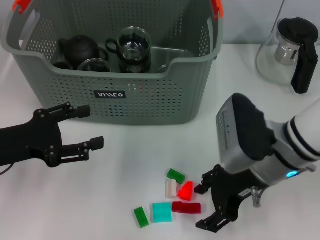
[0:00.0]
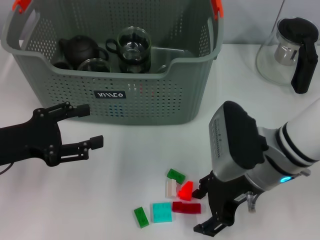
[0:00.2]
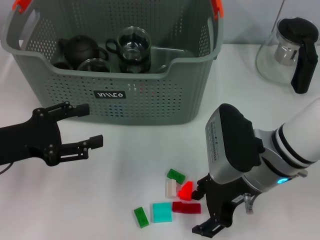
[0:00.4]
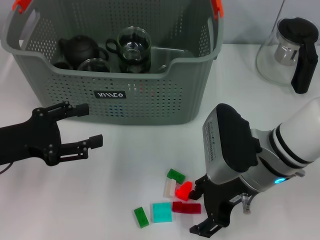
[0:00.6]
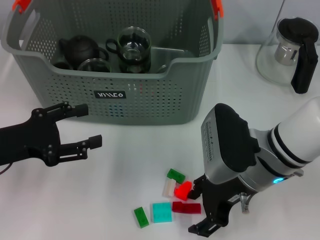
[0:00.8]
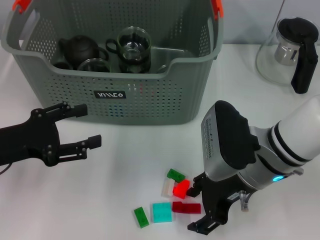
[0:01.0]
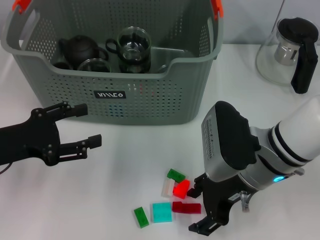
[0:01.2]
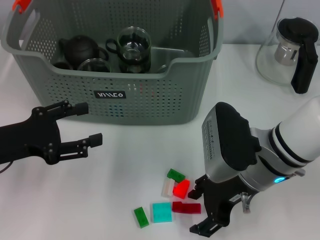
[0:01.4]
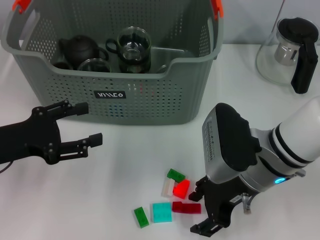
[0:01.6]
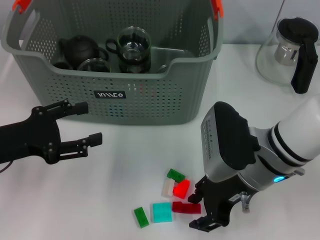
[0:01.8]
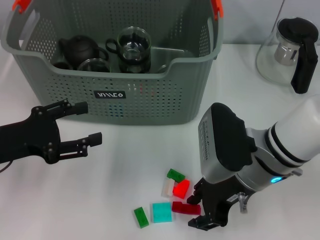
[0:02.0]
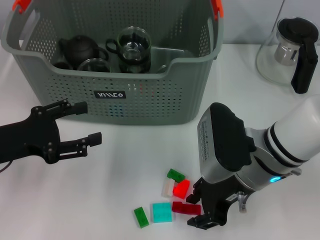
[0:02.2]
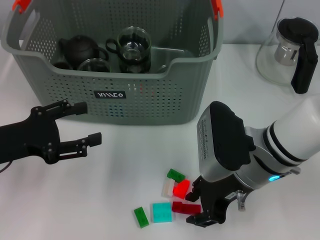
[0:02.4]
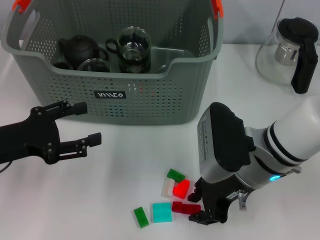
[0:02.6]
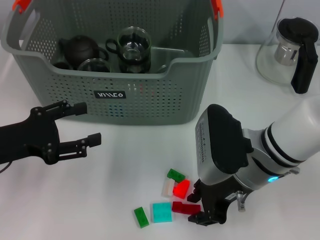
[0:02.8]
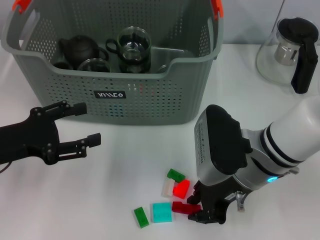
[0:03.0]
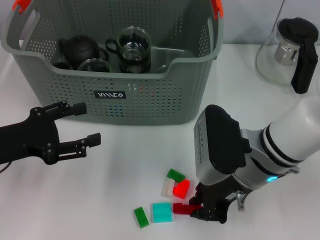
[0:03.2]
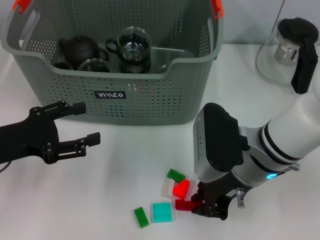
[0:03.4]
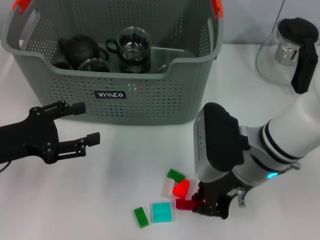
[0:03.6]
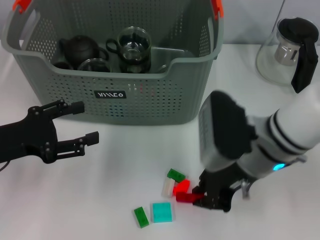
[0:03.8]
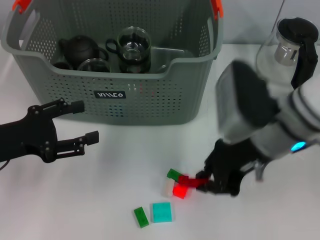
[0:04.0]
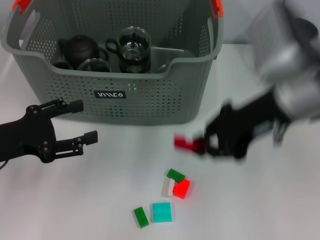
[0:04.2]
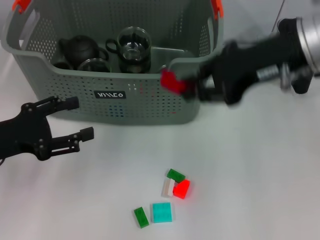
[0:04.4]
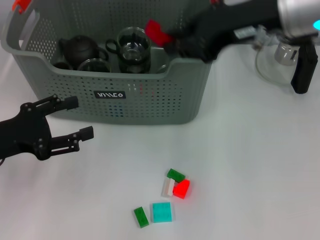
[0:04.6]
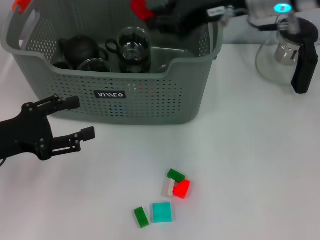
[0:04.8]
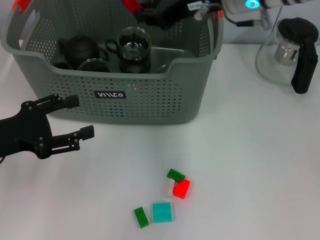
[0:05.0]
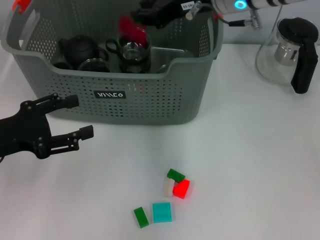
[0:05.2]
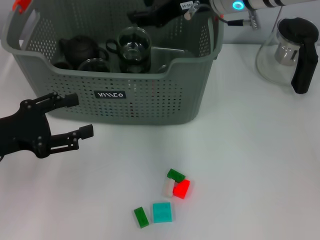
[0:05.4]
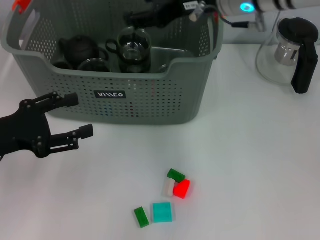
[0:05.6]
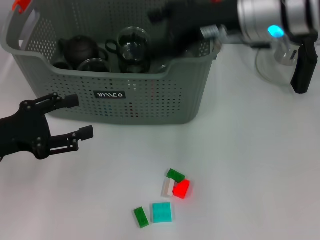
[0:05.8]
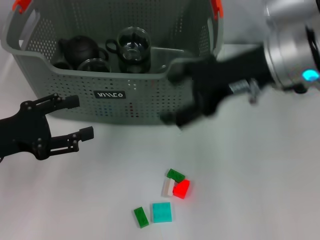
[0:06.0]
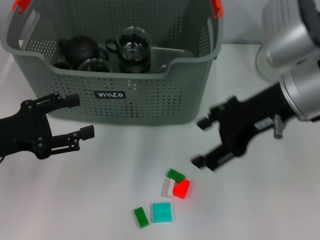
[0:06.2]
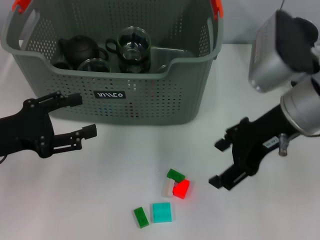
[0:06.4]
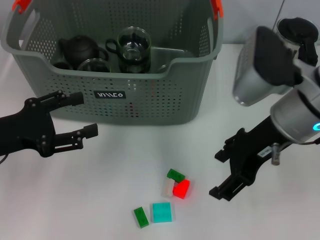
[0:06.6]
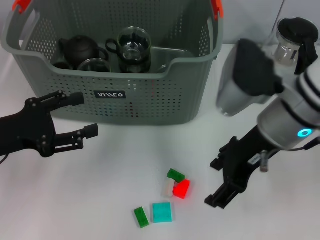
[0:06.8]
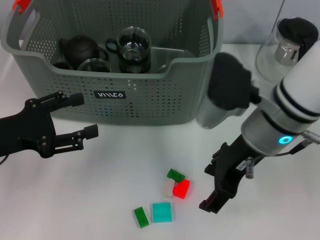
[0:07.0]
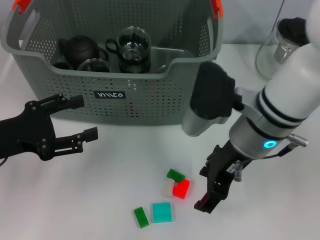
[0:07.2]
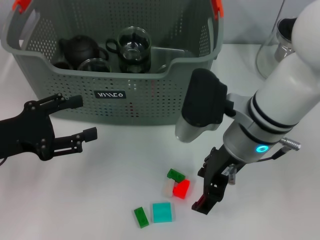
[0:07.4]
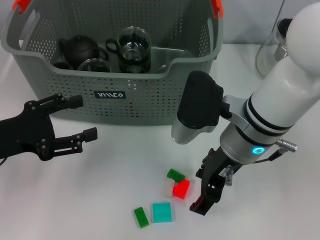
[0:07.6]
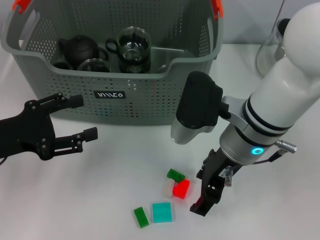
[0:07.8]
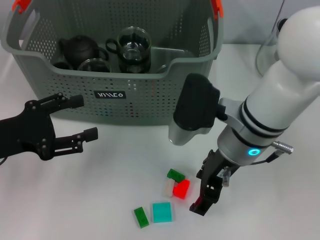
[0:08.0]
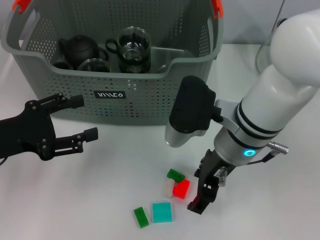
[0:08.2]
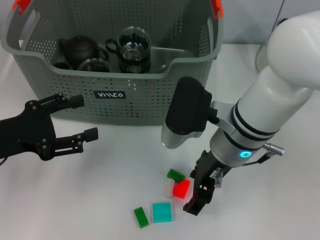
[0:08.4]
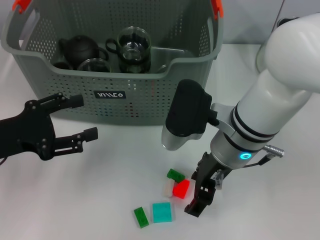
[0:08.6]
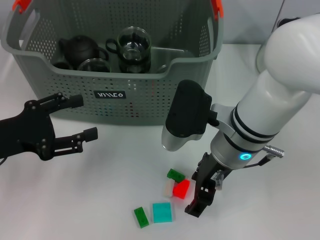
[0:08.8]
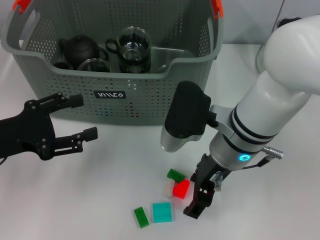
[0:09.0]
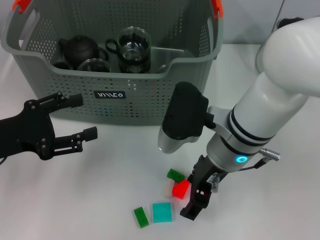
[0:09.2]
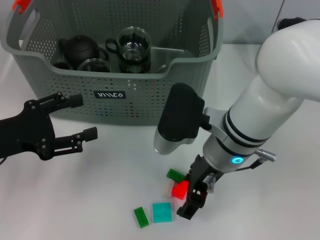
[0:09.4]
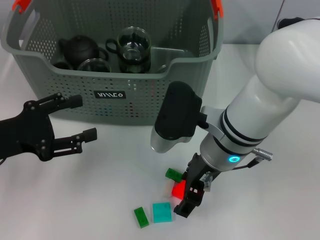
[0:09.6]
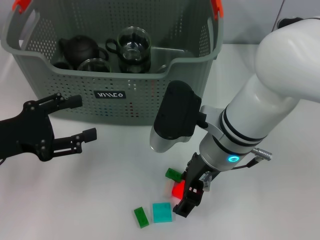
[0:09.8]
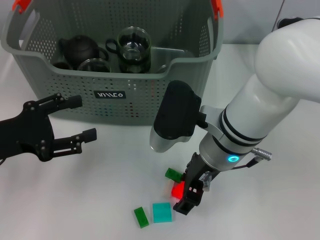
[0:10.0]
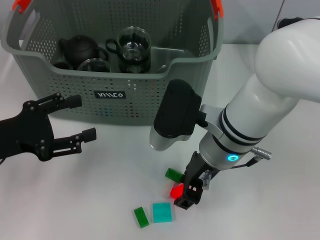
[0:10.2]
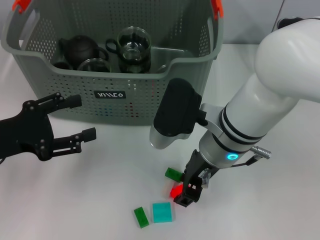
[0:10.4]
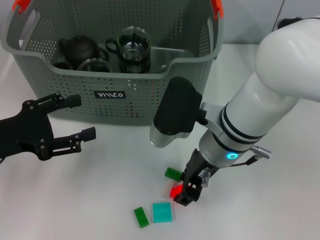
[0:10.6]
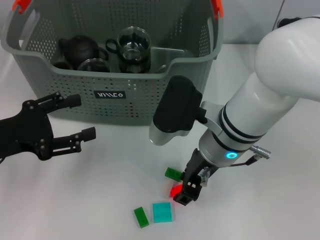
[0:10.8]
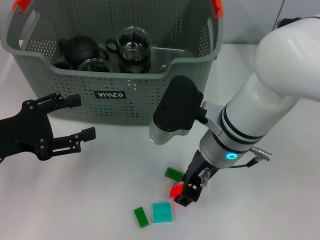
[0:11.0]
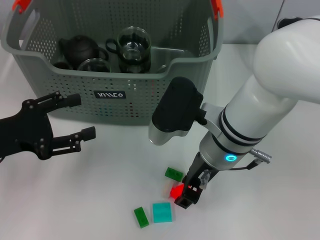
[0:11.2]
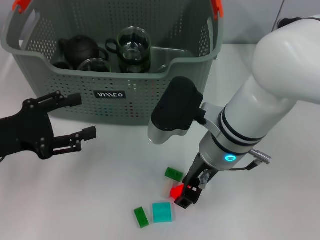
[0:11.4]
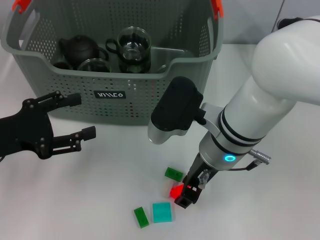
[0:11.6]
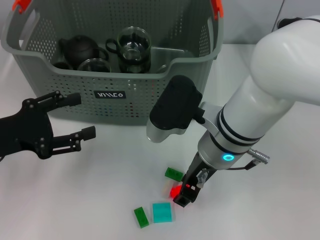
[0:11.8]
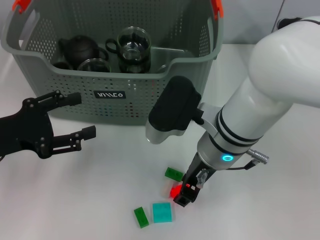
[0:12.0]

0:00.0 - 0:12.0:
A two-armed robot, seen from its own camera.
Task of the whole recording: pick up the teacup on the table and place it into the storage bin, pick up the block on the table and place it into the storage bin.
Step, 0:00.0 - 0:03.4: Grasp the red block with right gripper.
Step, 0:03.8 - 0:05.2: Place the red block in the storage box with right gripper.
Step, 0:05.4 - 0:11.8: Grasp the orange block with right gripper.
0:00.0 - 0:01.6: The grippers make only small movements.
0:01.6 - 0:03.0: The right gripper closes its fingers.
0:03.0 - 0:04.4: The right gripper travels upward by about 15 cm.
0:04.4 - 0:06.0: The right gripper goes forward and returns, some 10 cm each way, and opens.
0:06.0 - 0:07.6: The right gripper shifts approximately 10 cm downward and to the left.
0:07.6 - 0:09.0: There are only small adjustments of the grippers.
0:09.0 - 0:10.4: The right gripper closes up.
0:10.4 - 0:12.0: The grippers move only a little.

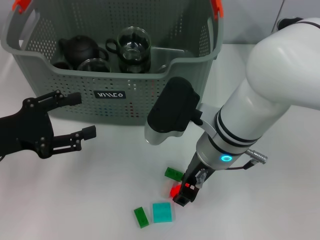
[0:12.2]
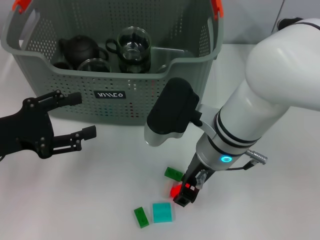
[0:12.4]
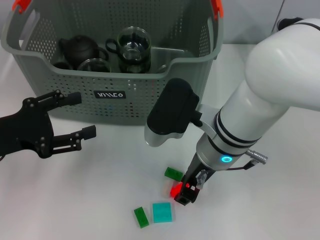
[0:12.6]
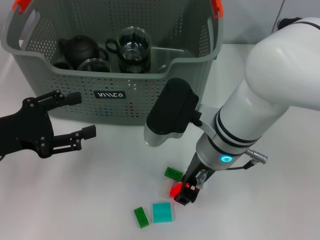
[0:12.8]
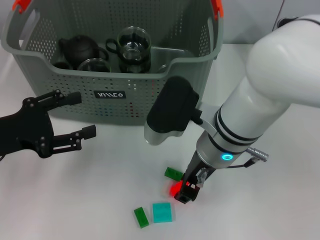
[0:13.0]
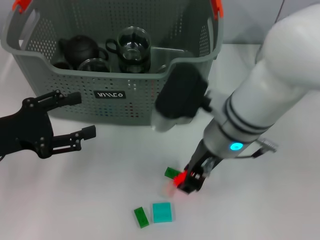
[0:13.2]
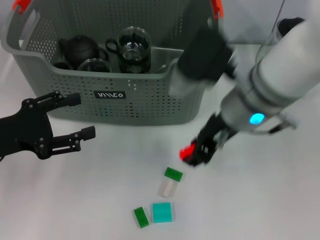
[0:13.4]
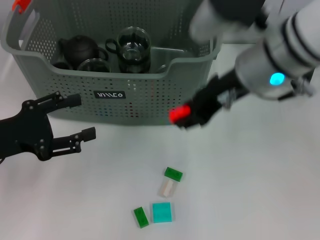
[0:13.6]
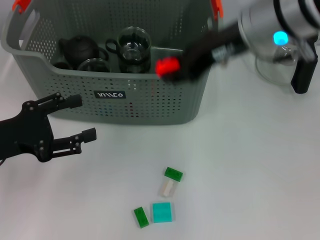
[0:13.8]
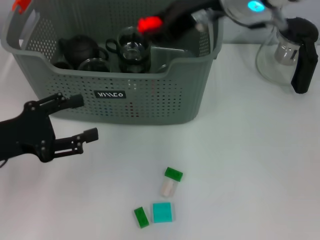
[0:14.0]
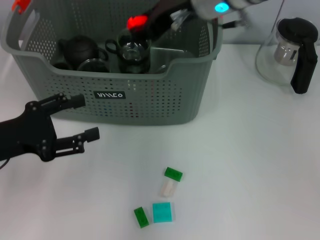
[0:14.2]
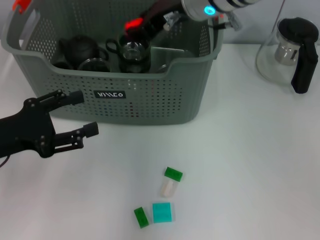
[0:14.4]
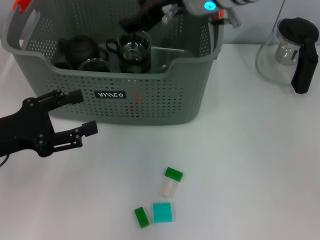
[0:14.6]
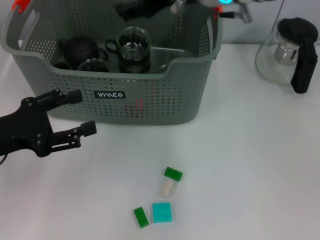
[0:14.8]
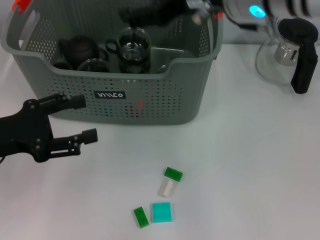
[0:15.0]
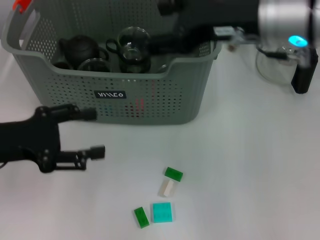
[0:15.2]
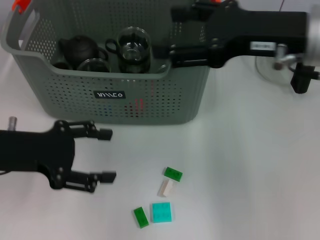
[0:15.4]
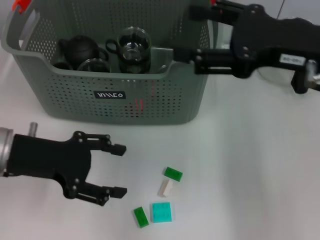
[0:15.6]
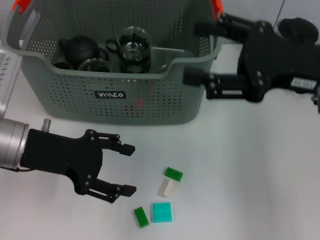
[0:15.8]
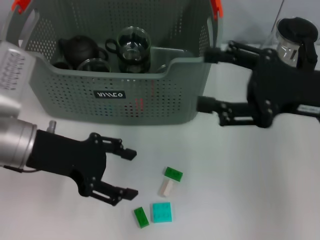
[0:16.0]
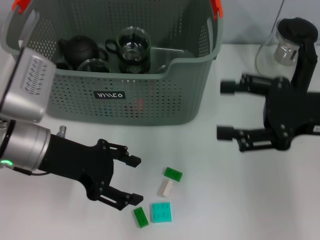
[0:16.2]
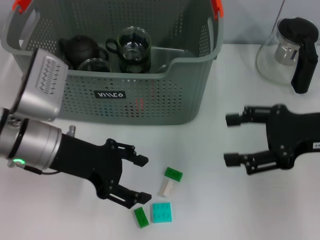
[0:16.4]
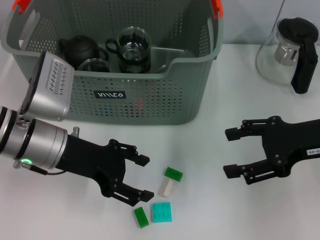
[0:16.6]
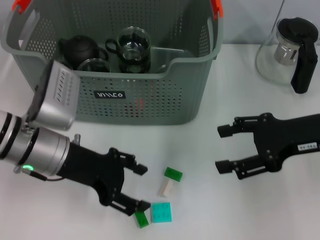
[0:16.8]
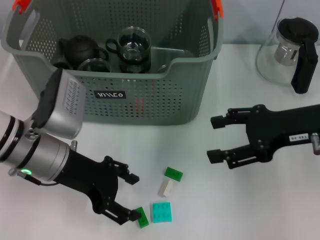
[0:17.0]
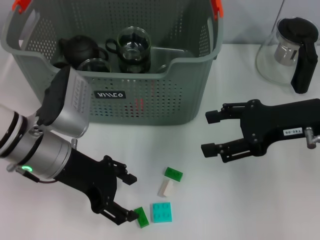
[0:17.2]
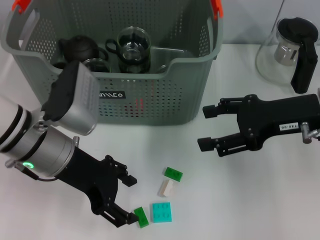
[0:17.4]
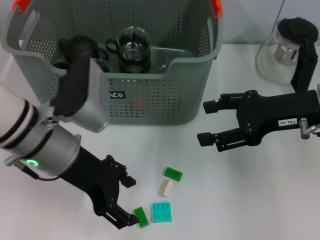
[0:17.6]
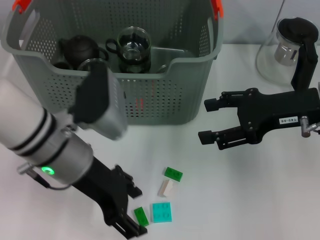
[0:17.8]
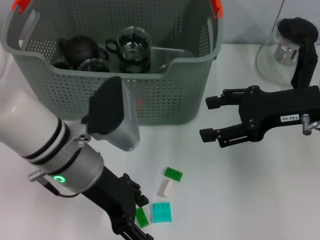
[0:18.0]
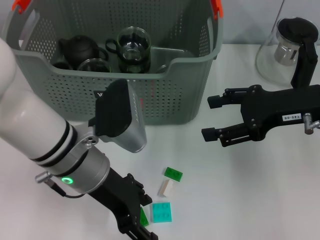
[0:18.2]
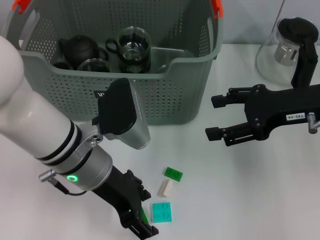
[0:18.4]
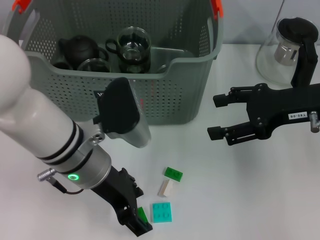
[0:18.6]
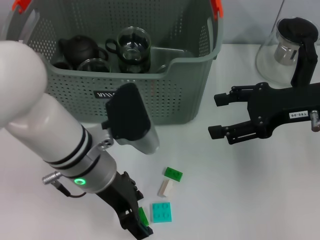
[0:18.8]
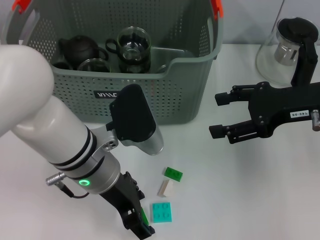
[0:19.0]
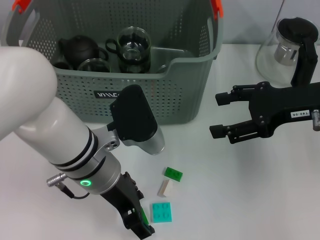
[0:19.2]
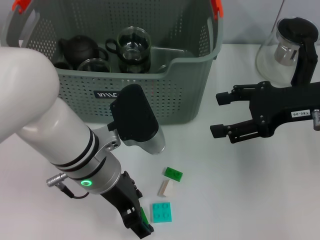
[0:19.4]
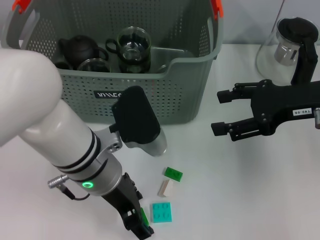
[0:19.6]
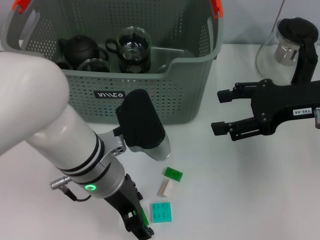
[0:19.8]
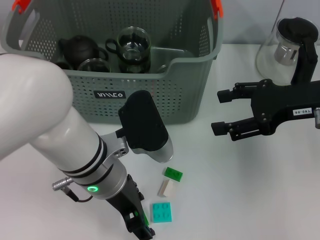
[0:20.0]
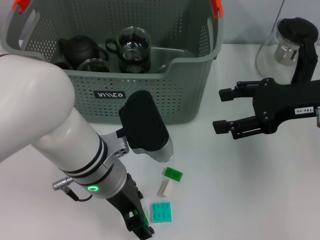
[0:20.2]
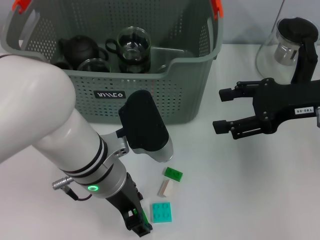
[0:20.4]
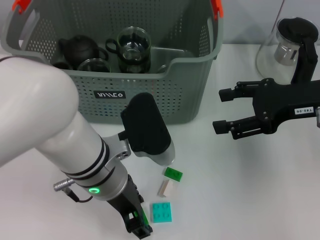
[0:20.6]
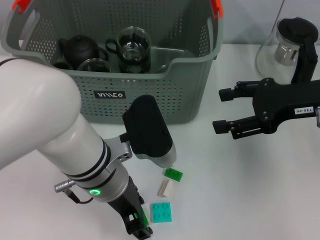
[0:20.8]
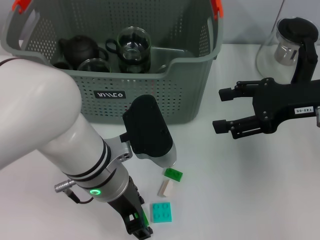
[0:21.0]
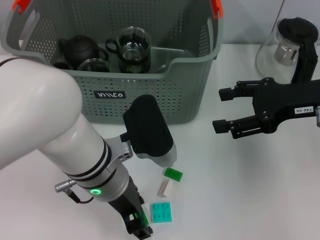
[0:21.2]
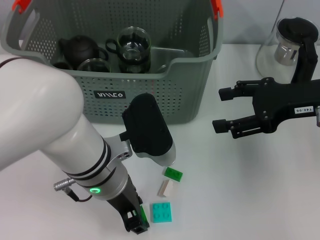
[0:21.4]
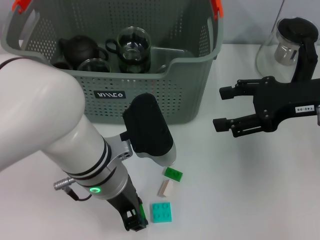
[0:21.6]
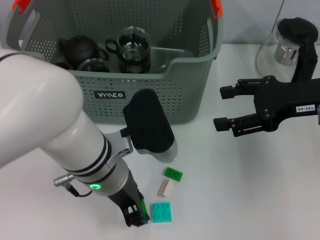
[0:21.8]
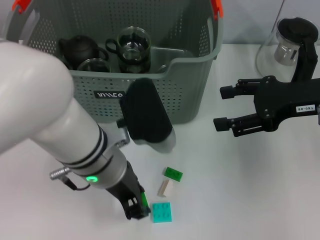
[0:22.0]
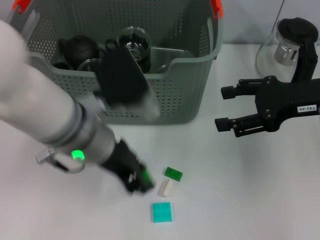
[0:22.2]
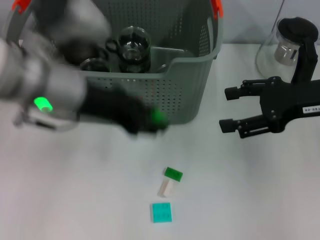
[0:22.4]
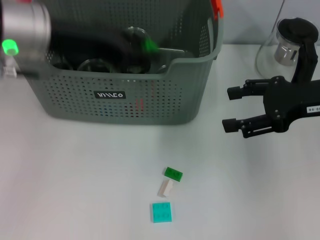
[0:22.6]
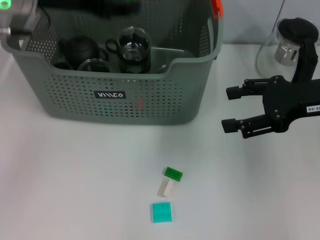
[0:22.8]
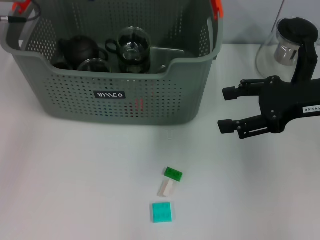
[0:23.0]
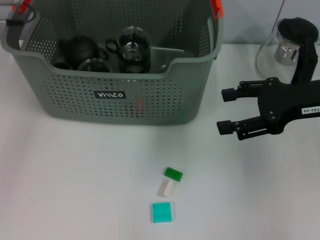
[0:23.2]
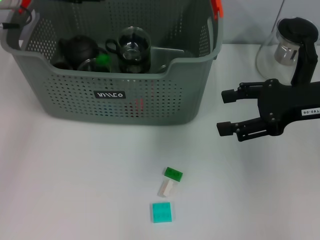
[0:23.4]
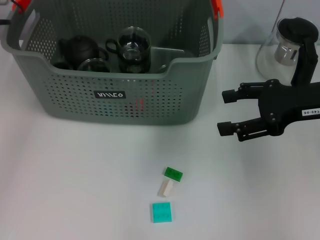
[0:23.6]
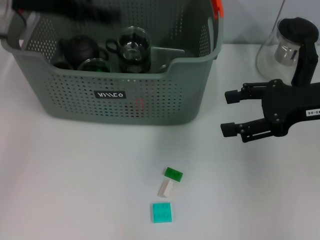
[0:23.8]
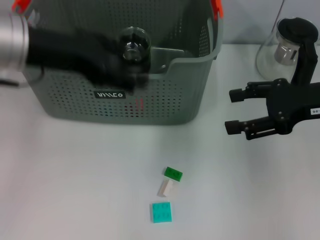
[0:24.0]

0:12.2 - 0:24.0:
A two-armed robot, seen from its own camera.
Task of the whole recording: pick up the teacup on the table and place it into the storage bin, pick up the block on the table and place it into the storage bin.
Step, 0:12.2 - 0:14.4: Place the orange block in the storage box with right gripper.
Step, 0:14.8 - 0:21.6: Grasp the green block with left gripper.
Step, 0:21.8 - 0:23.4: Place the green block in the storage box with left gripper.
0:12.2 - 0:13.6: The right gripper shifts approximately 10 cm upward.
0:13.6 - 0:15.2: The right gripper goes forward and returns, approximately 10 cm each way, and opens up.
0:15.2 - 0:16.6: The right gripper goes about 15 cm to the right and downward, while the left gripper is displaced to the right by roughly 10 cm.
0:16.6 - 0:18.2: The left gripper travels to the right by approximately 5 cm.
0:18.2 - 0:19.6: The grippers make only small movements.
0:19.6 - 0:21.0: Neither gripper changes place.
0:21.0 - 0:22.6: The left gripper heads upward, to the left and forward, covering some 20 cm.
0:22.6 - 0:24.0: The left gripper moves roughly 10 cm forward and comes back, and opens its fingers.
